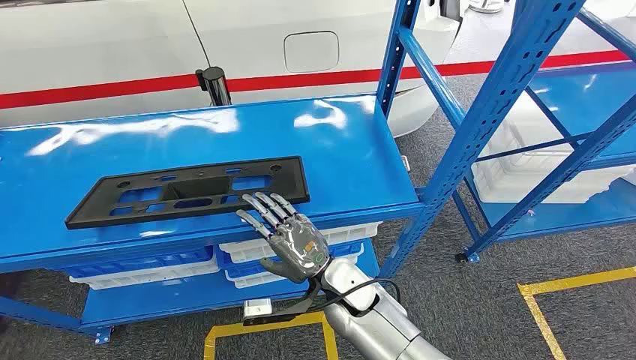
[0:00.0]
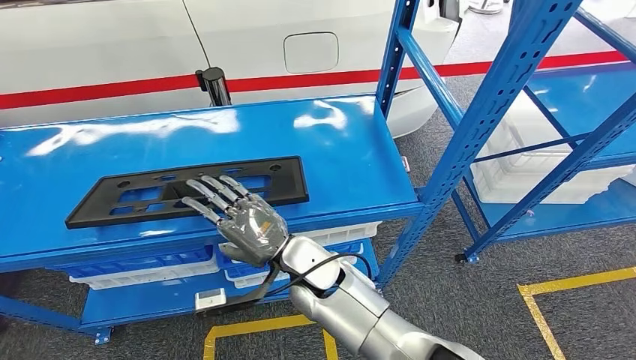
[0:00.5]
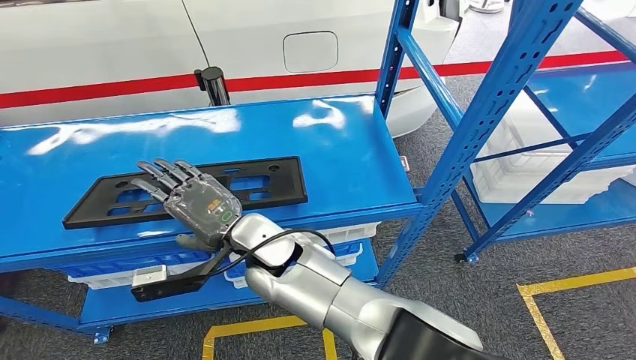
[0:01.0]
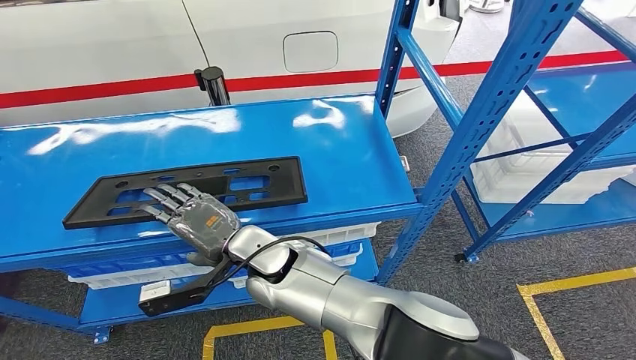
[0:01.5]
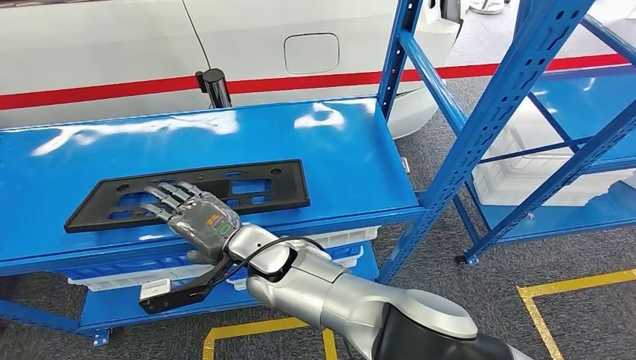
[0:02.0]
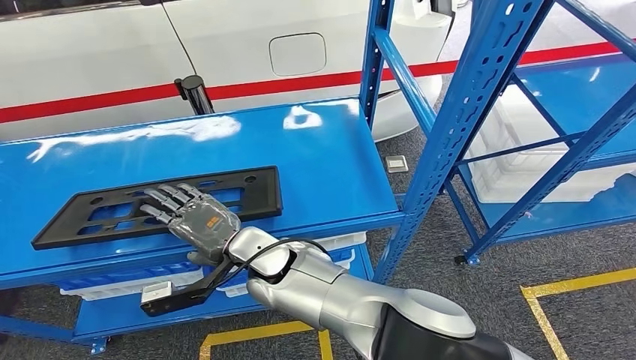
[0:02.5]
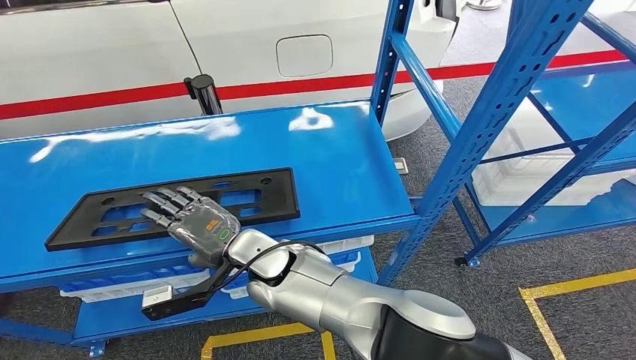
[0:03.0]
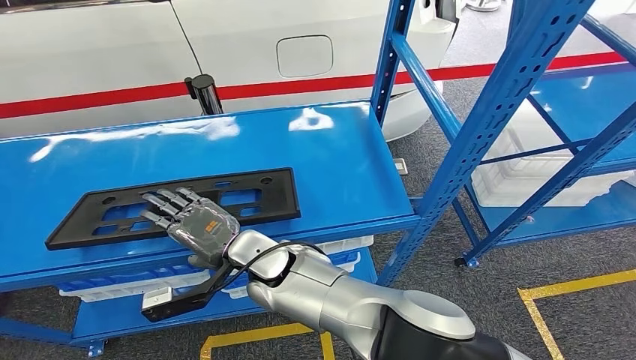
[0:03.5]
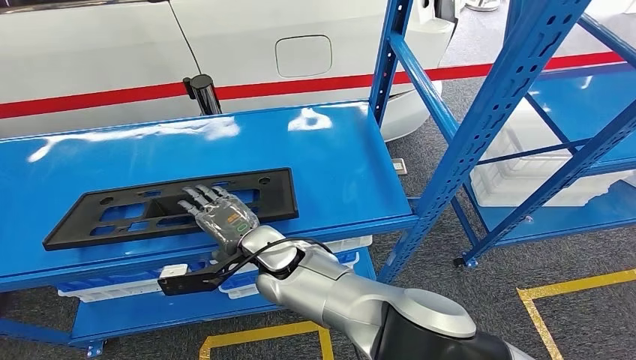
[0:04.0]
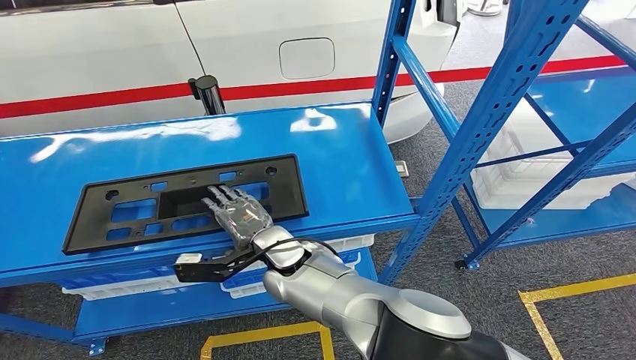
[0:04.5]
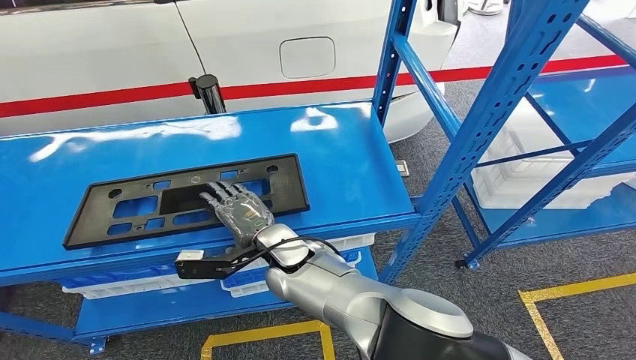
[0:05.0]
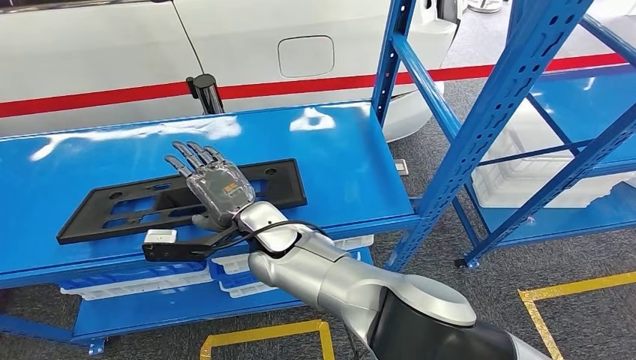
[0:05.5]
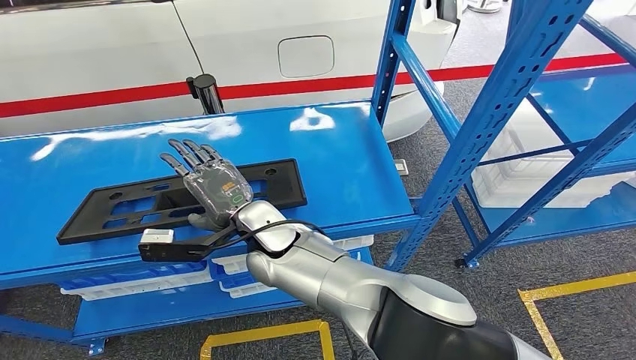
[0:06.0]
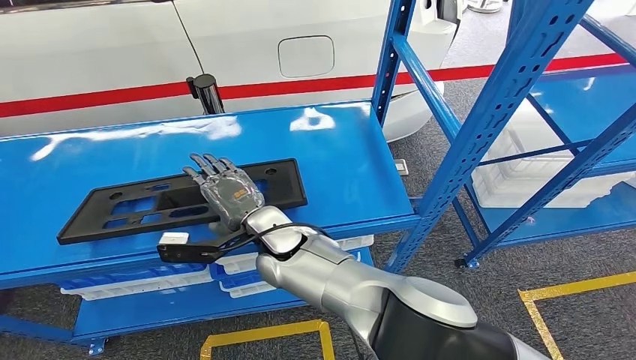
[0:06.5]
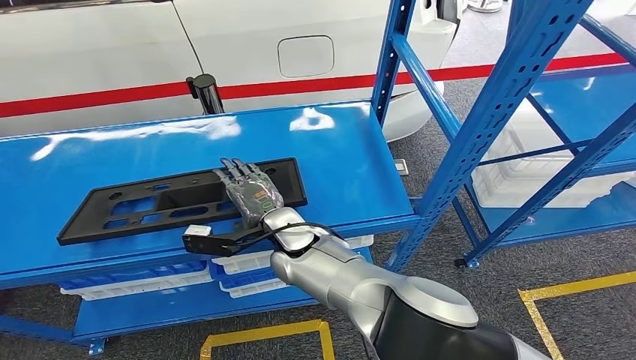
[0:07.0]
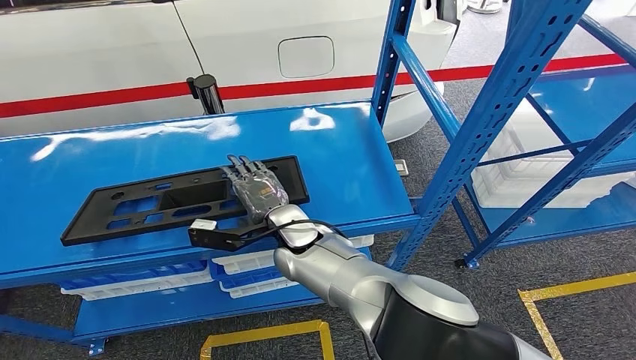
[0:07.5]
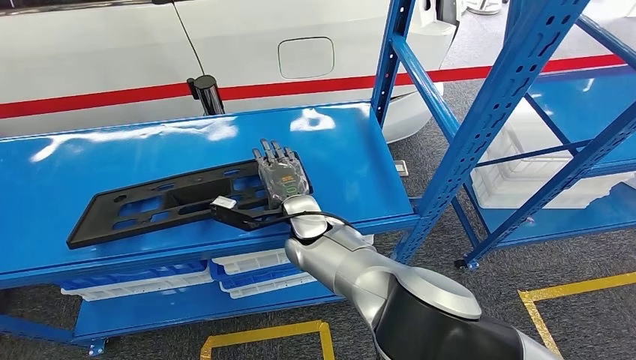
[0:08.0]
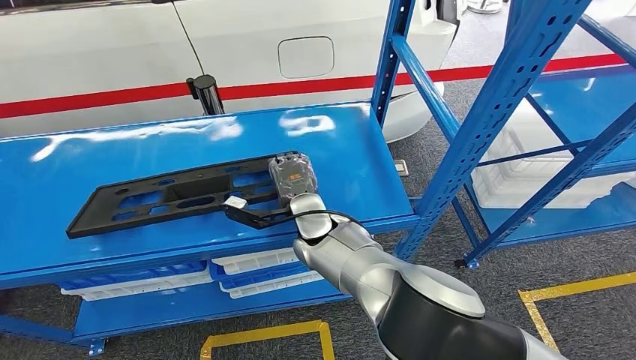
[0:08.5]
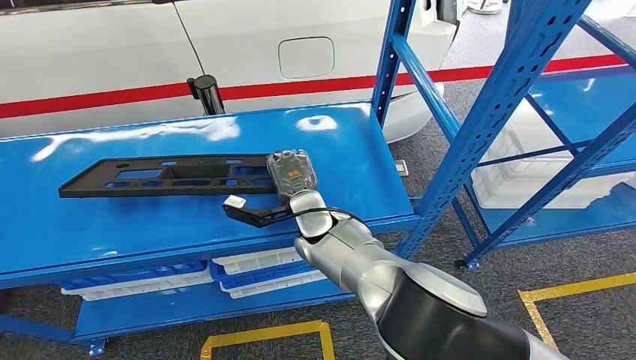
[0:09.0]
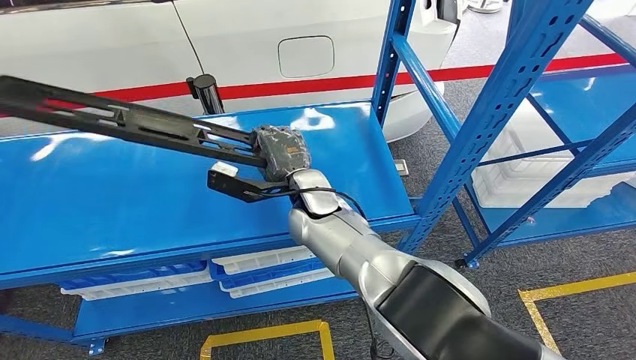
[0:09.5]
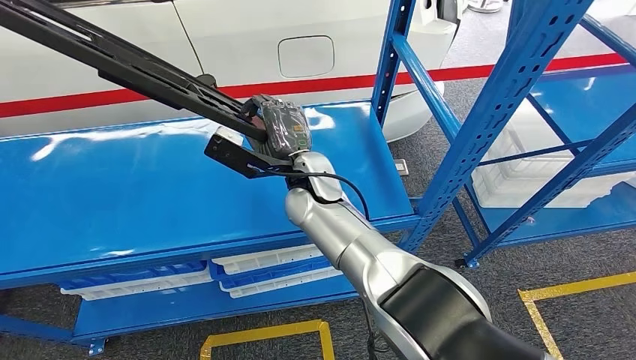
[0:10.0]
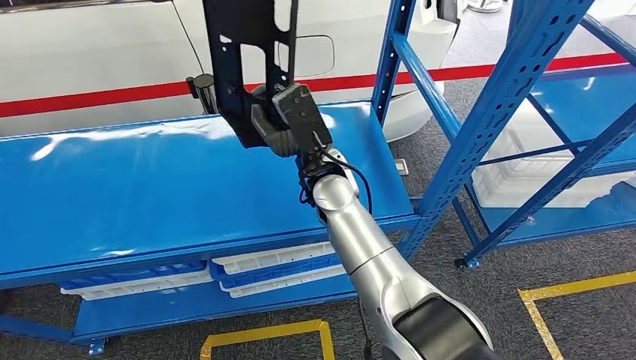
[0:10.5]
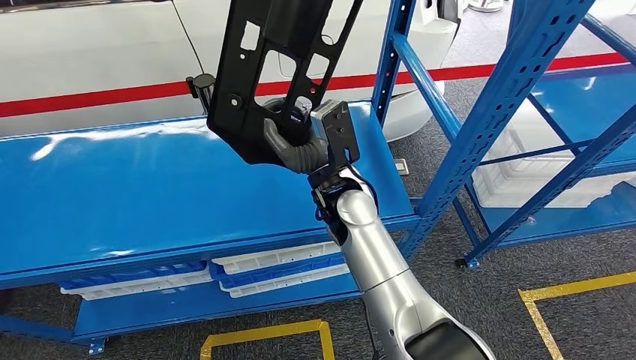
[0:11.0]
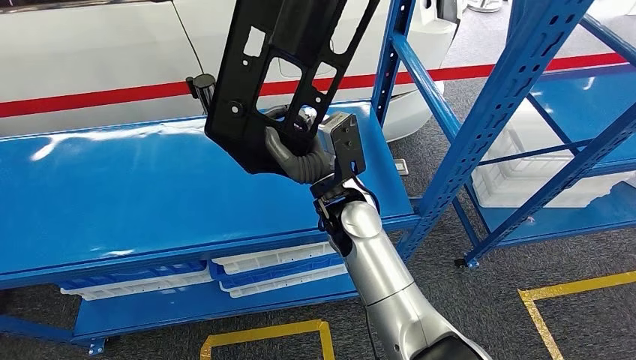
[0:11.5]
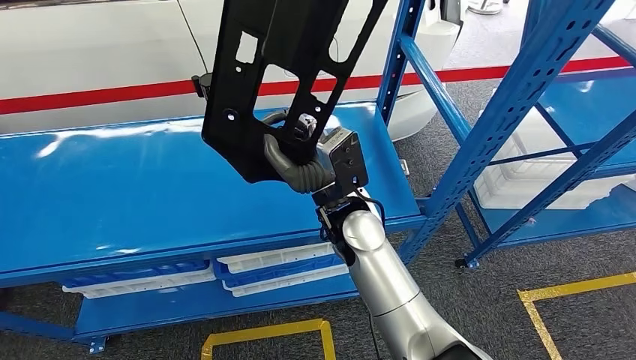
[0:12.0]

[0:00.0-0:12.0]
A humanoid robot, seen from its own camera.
0:04.0 to 0:06.0: The hands make only small movements.
0:06.0 to 0:08.0: The right hand is displaced to the right by about 5 cm.

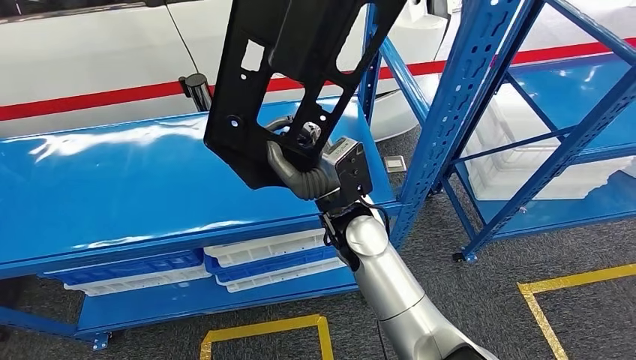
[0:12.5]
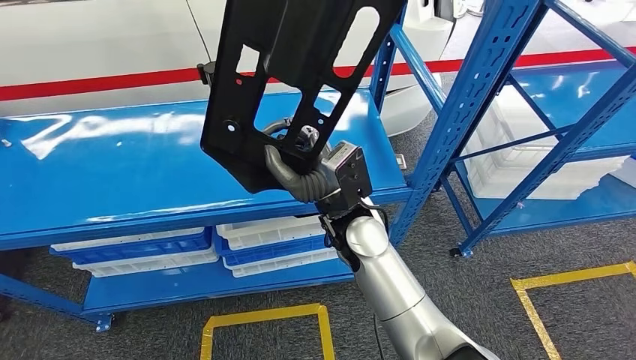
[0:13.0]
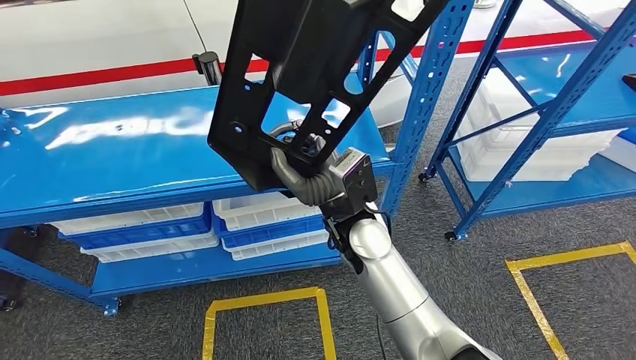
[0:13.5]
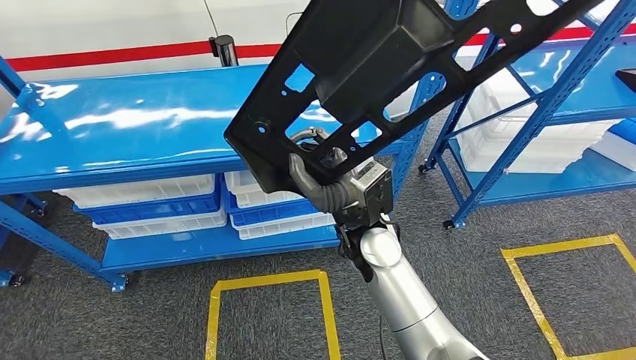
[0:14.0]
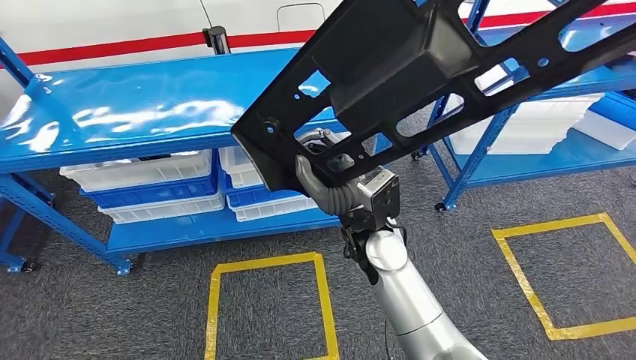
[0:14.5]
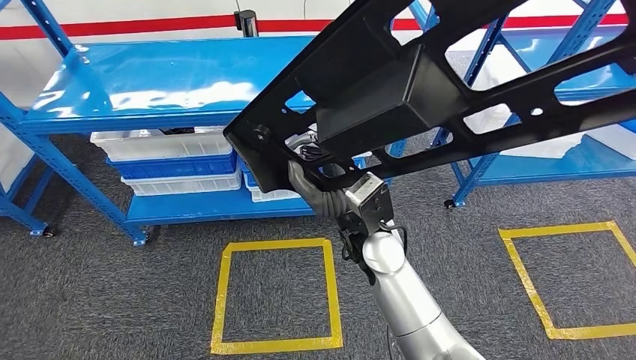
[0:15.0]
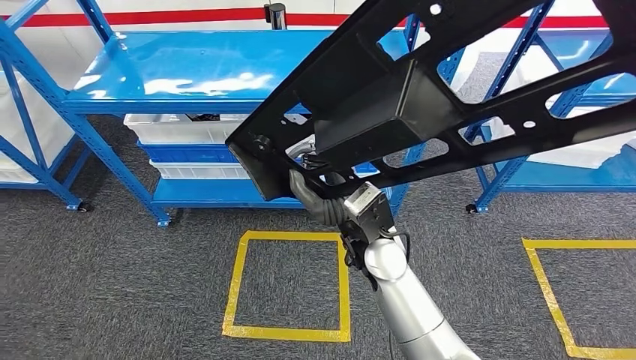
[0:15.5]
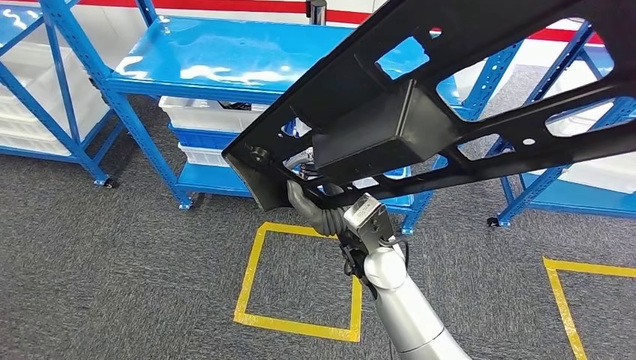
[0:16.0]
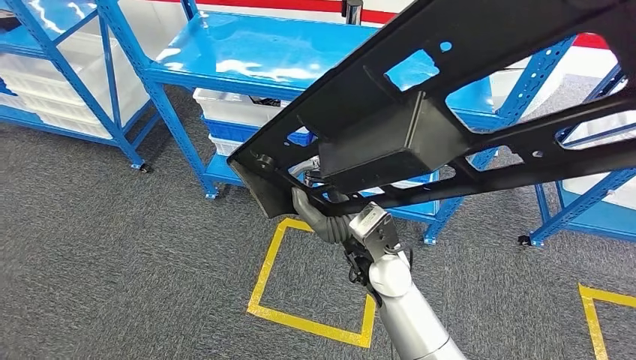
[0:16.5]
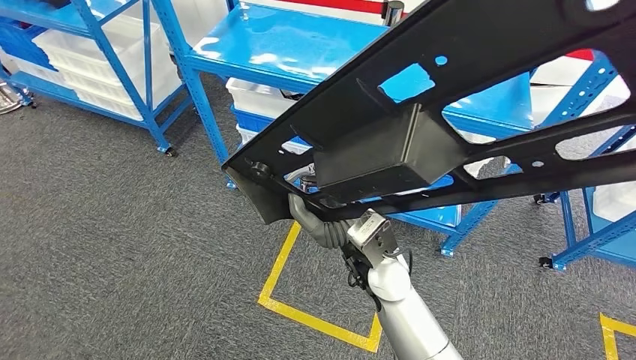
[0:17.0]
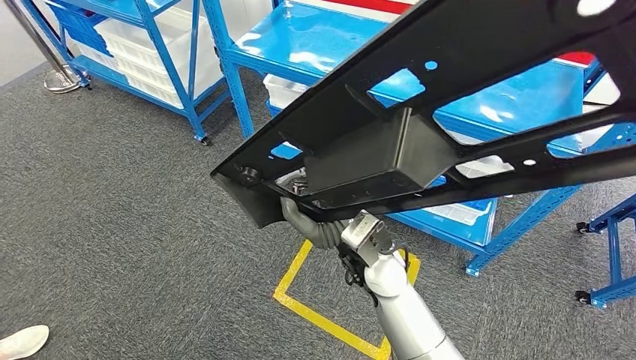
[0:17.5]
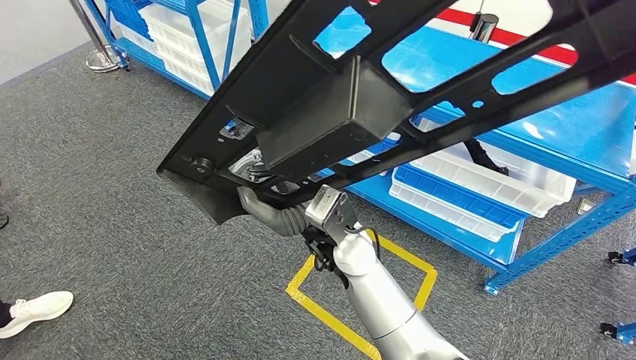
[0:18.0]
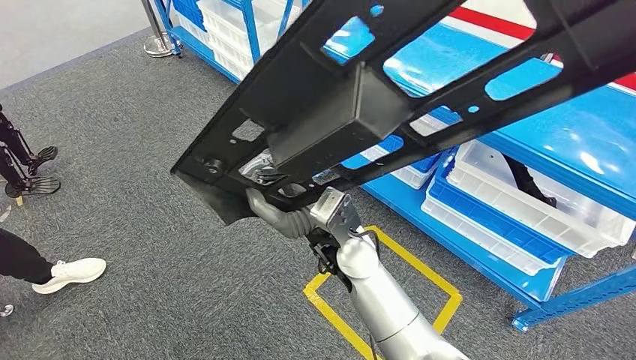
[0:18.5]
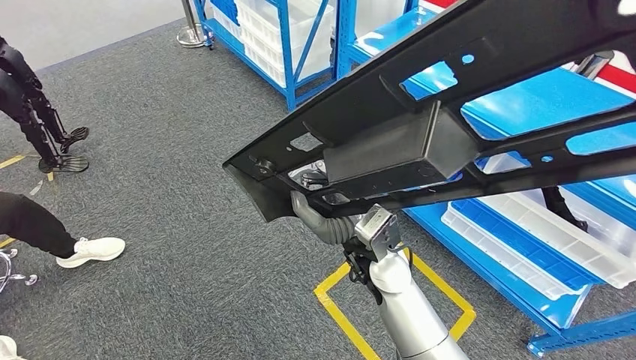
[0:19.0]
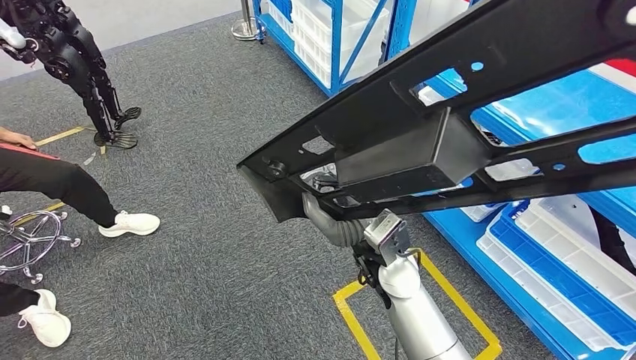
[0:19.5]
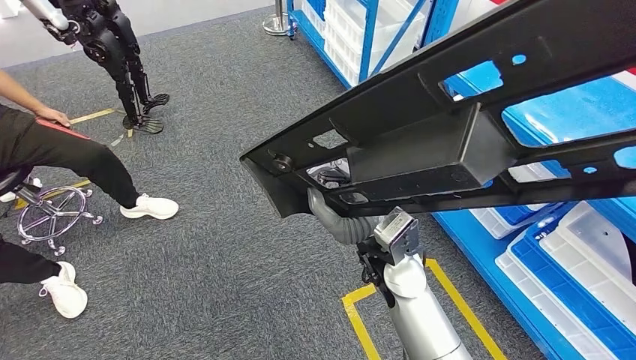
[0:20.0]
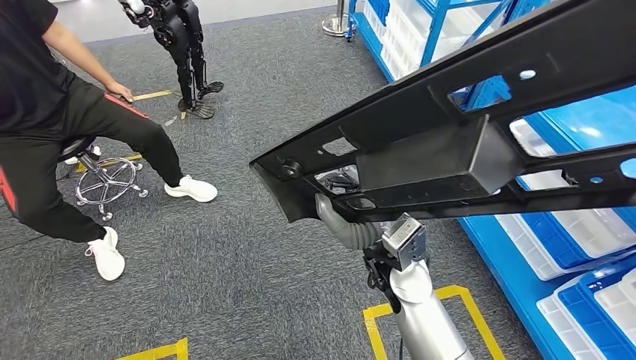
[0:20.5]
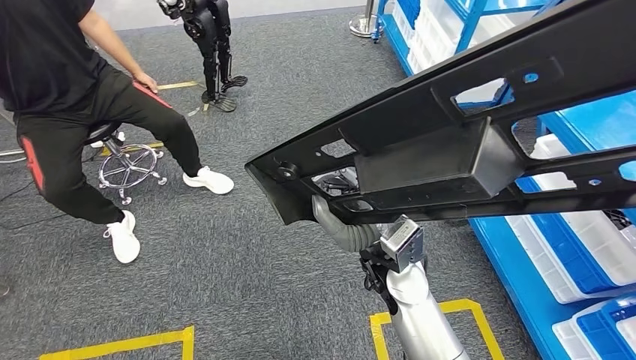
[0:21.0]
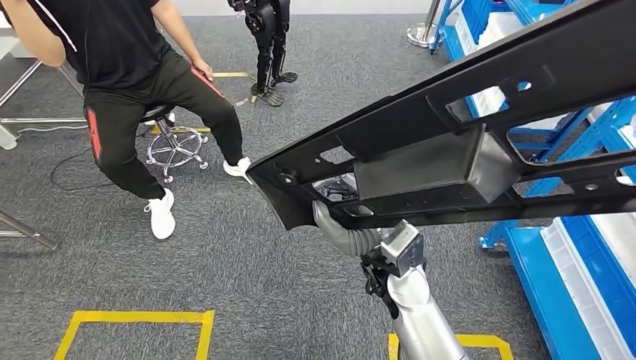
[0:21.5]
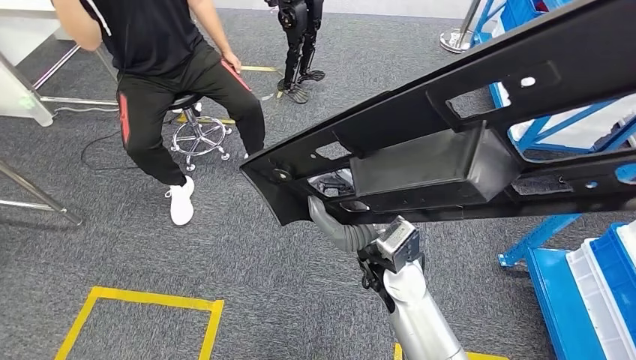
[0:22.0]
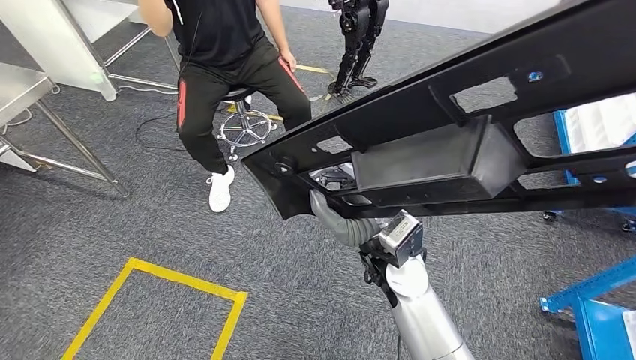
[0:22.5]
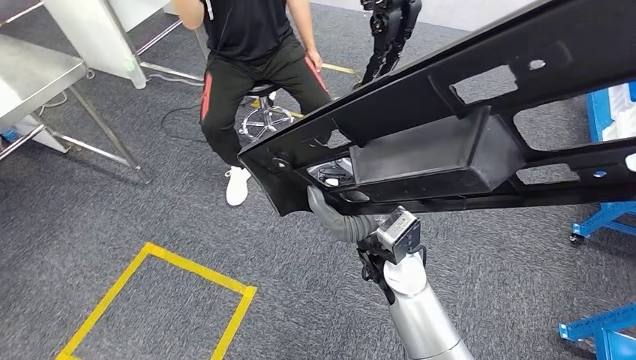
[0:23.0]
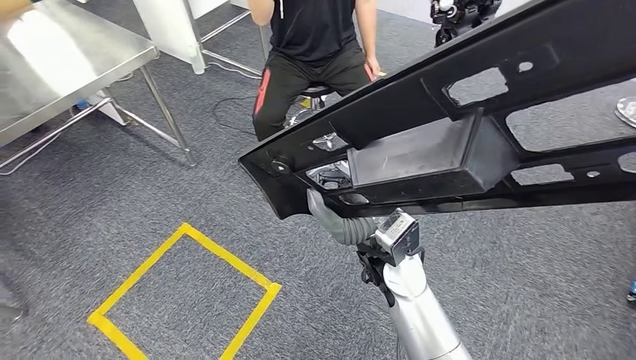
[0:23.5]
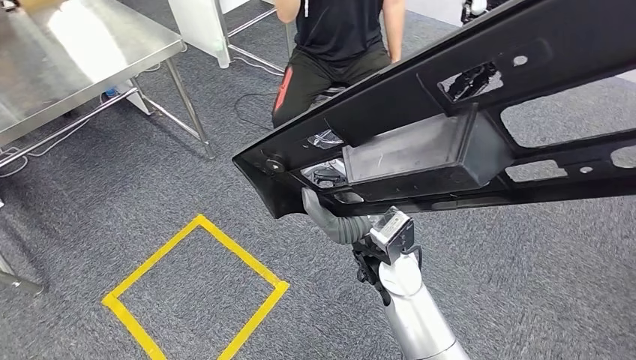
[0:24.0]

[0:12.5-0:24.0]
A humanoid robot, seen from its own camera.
Step, 0:12.5 to 0:14.5: Pick up the large material from the shelf.
